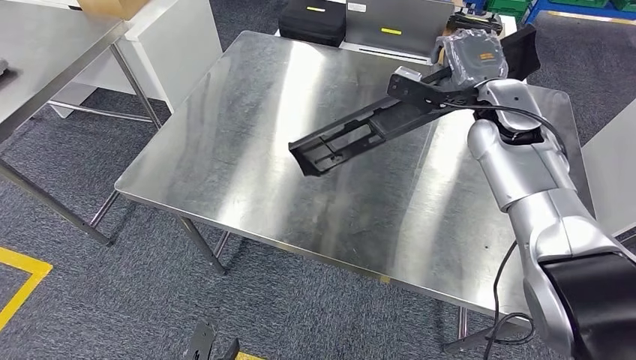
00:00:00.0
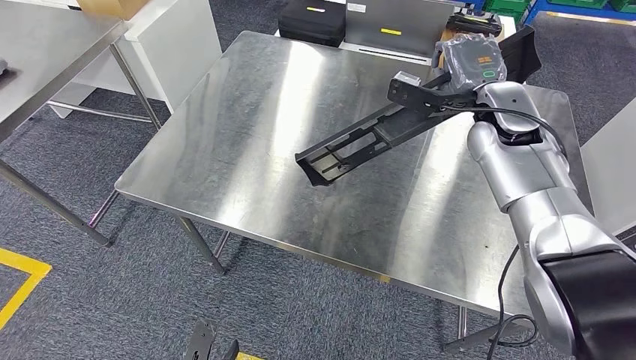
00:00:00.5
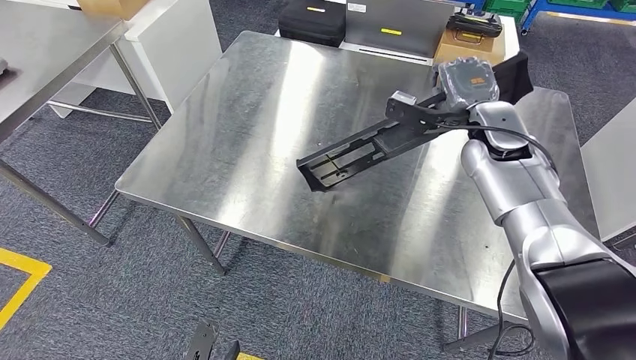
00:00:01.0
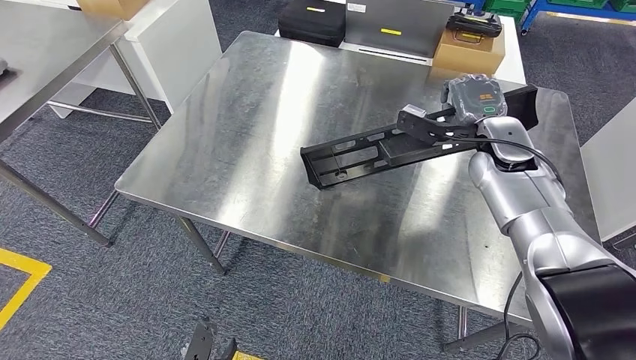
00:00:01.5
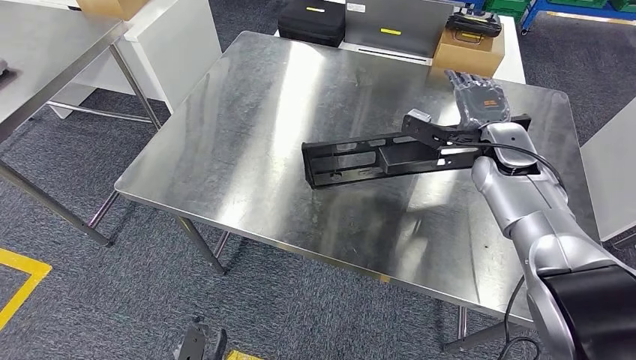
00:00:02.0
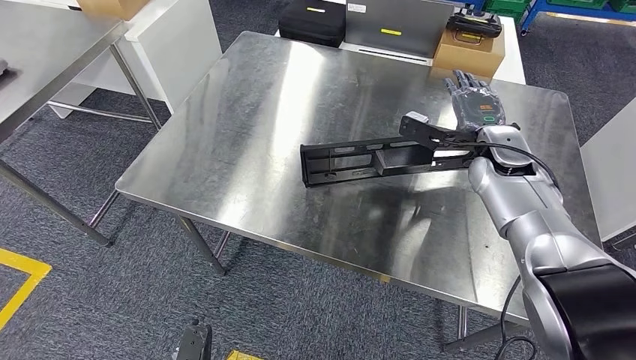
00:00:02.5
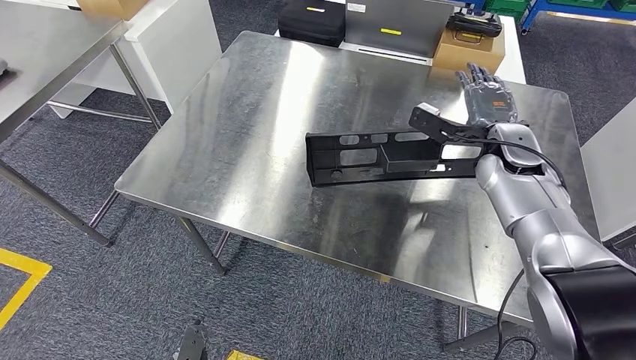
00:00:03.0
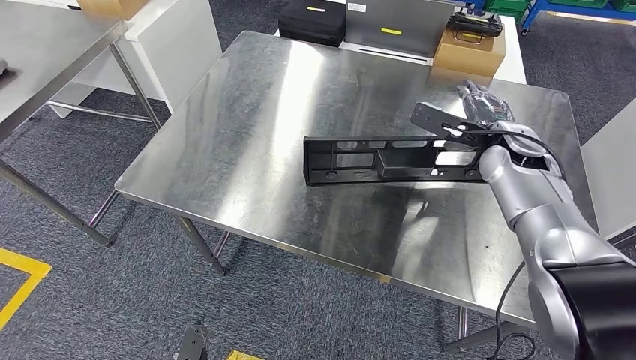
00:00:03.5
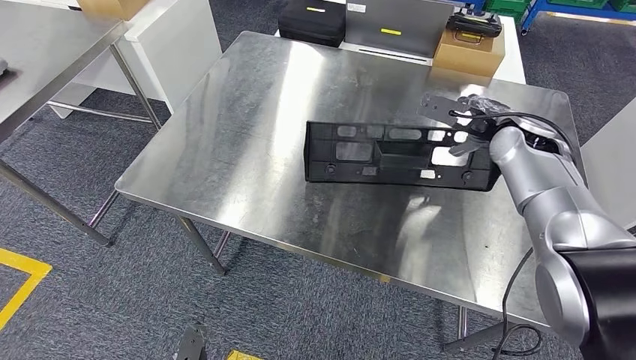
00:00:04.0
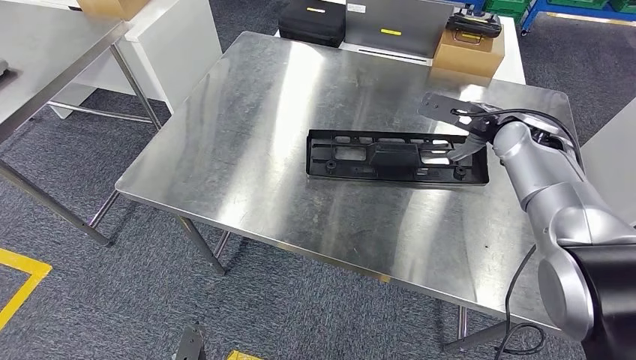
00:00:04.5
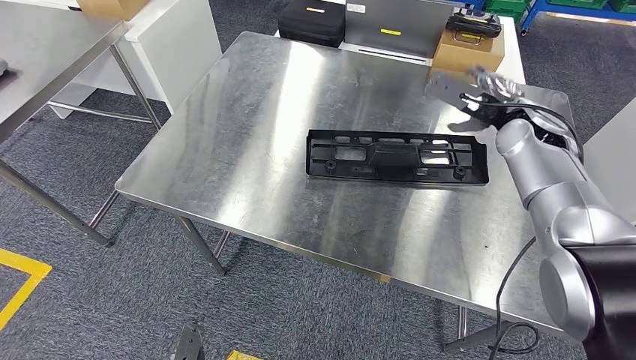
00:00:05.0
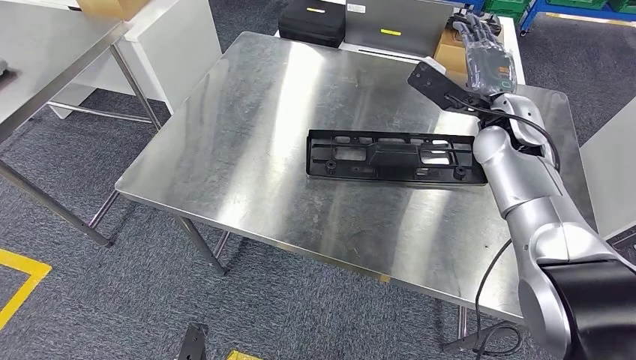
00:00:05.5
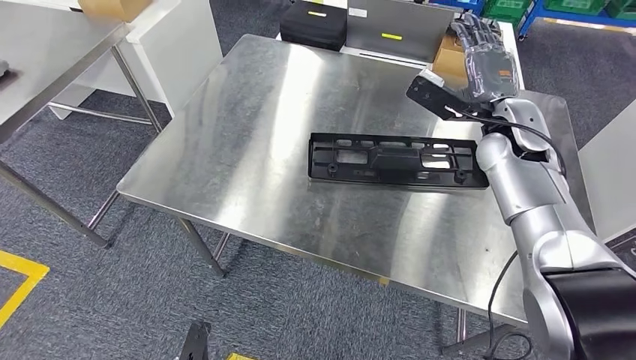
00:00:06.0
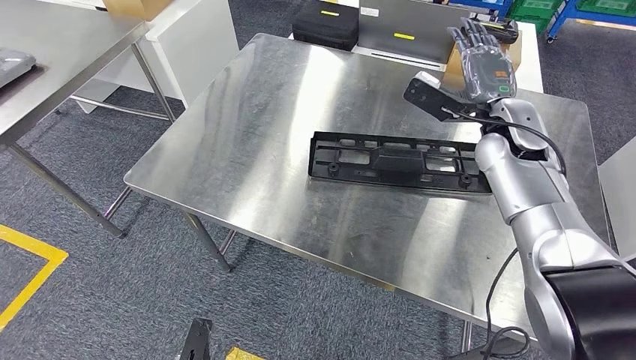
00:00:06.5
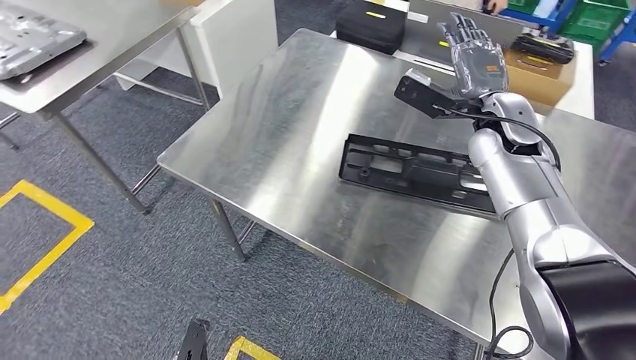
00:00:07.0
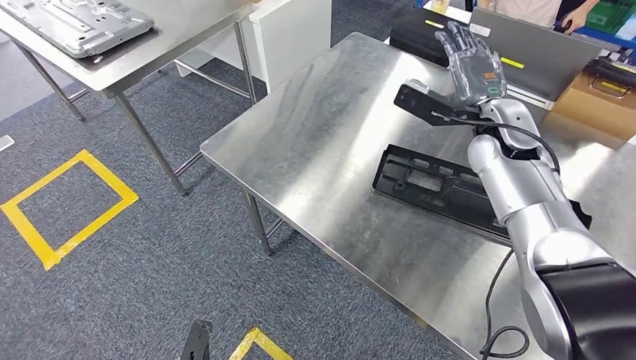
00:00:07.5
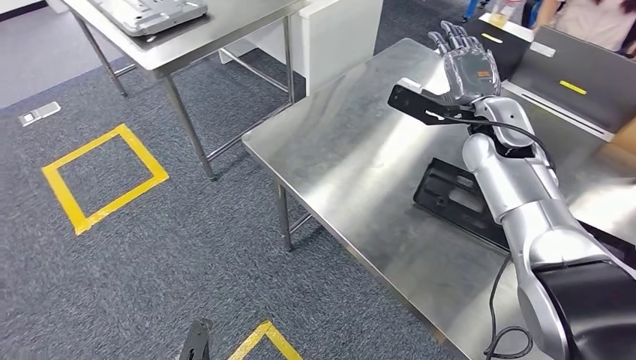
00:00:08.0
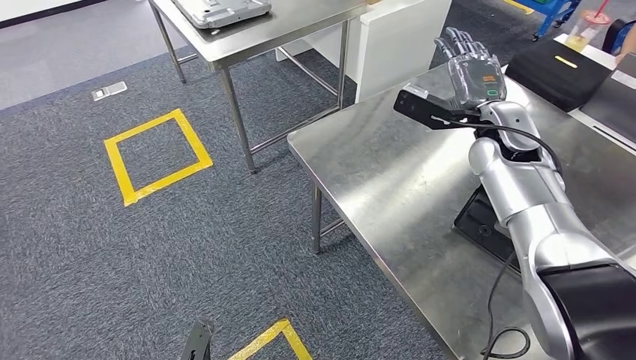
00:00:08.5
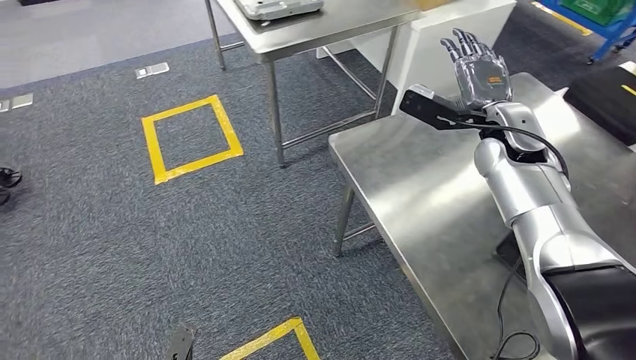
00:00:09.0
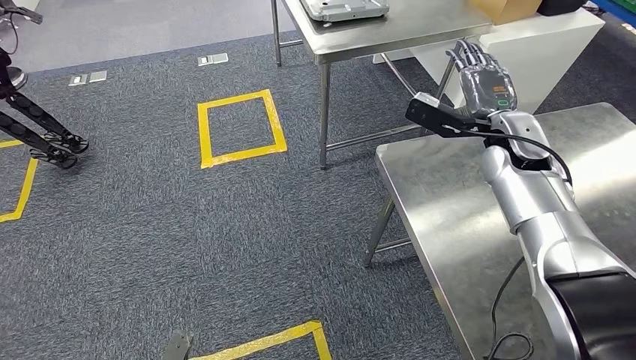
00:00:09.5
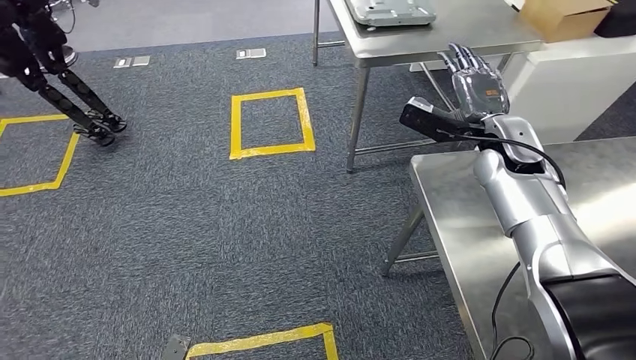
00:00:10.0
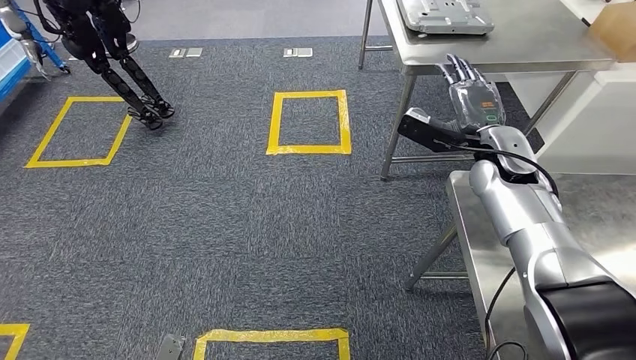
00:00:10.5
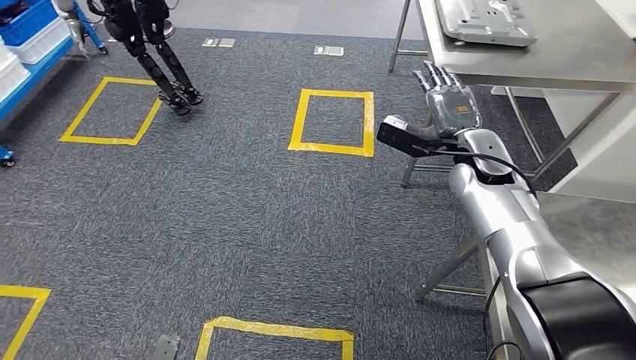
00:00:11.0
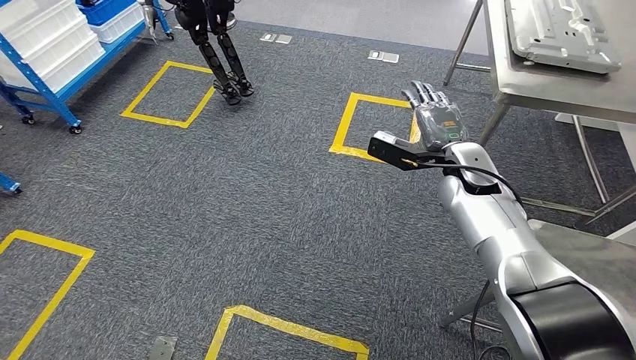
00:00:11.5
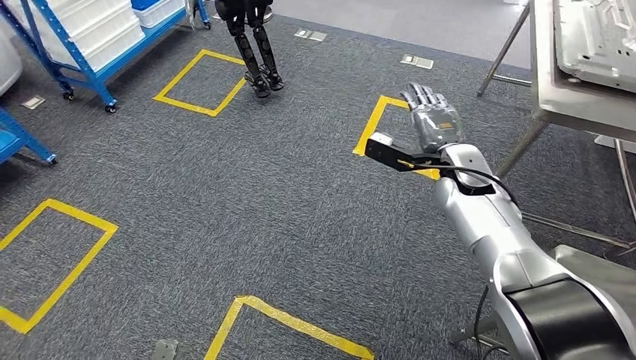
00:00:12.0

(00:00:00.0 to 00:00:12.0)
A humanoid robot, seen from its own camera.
Step, 00:00:00.0 - 00:00:09.0: Insert the large material into the corresponding slot on the workbench.
00:00:00.0 - 00:00:02.0: The right hand travels downward by about 5 cm.

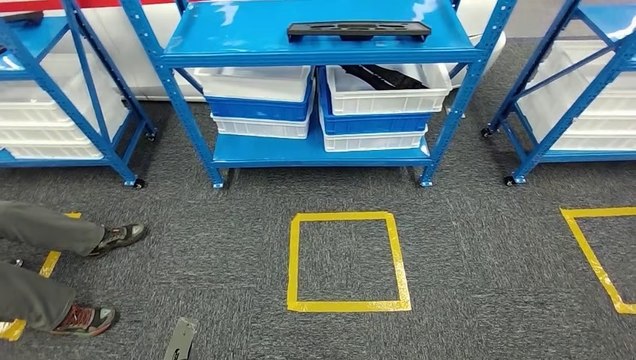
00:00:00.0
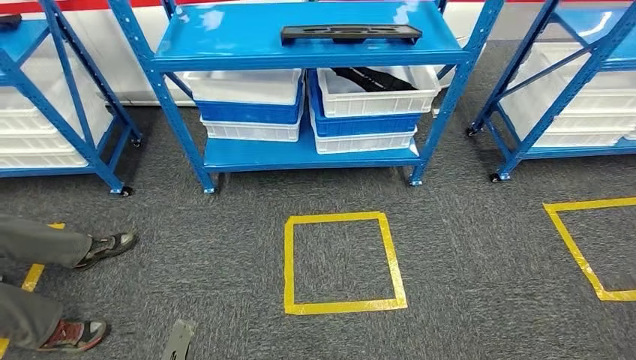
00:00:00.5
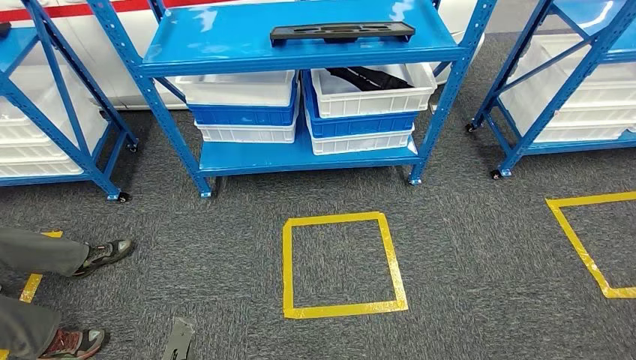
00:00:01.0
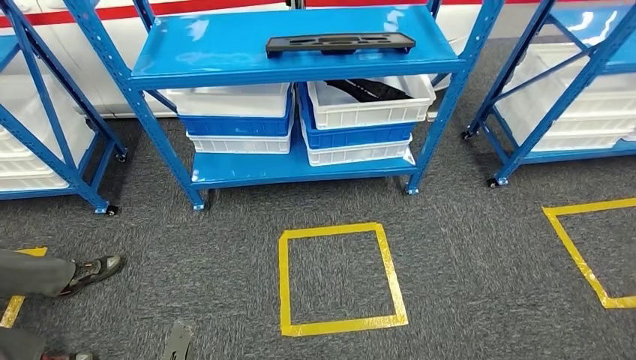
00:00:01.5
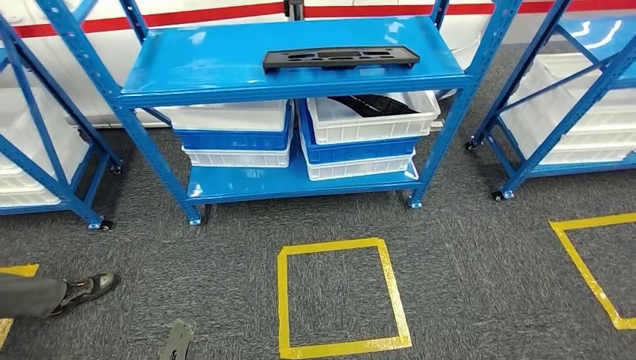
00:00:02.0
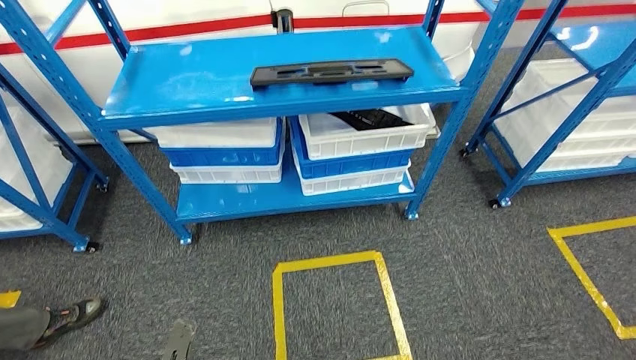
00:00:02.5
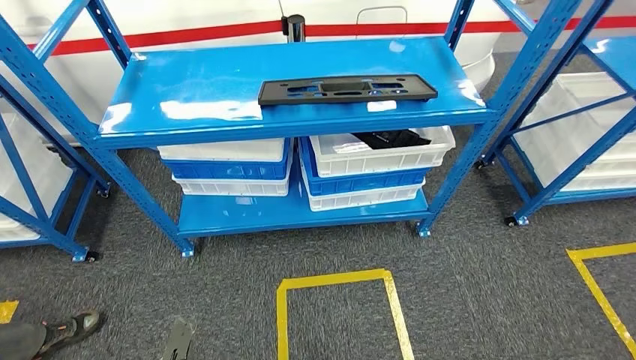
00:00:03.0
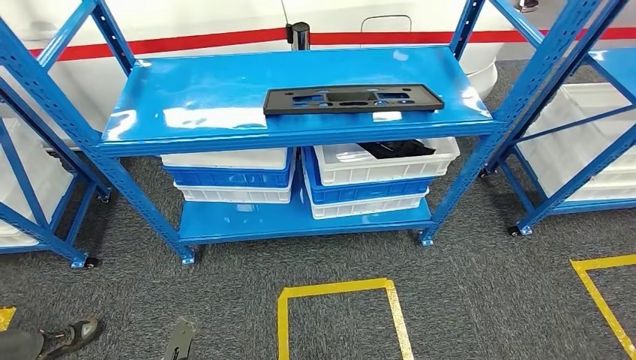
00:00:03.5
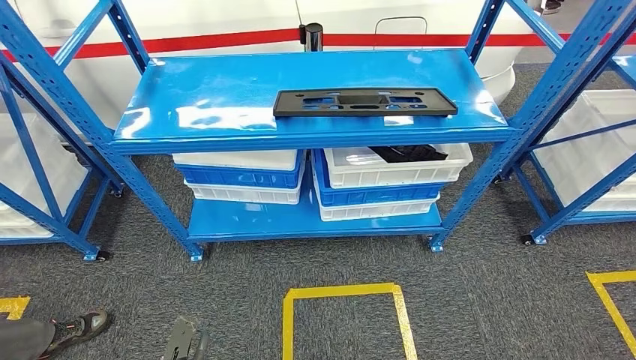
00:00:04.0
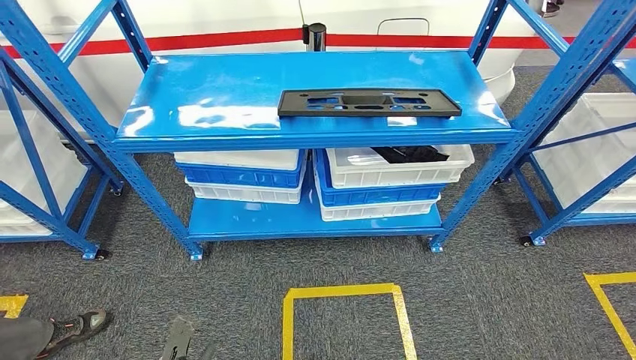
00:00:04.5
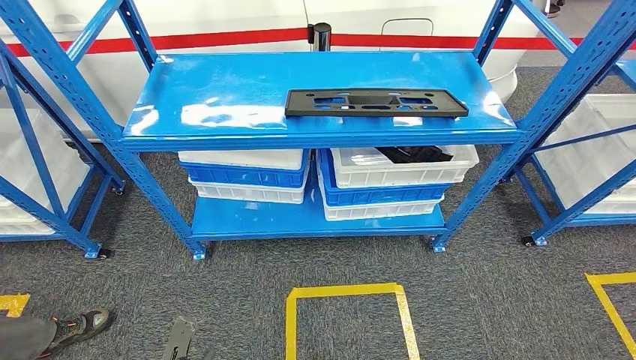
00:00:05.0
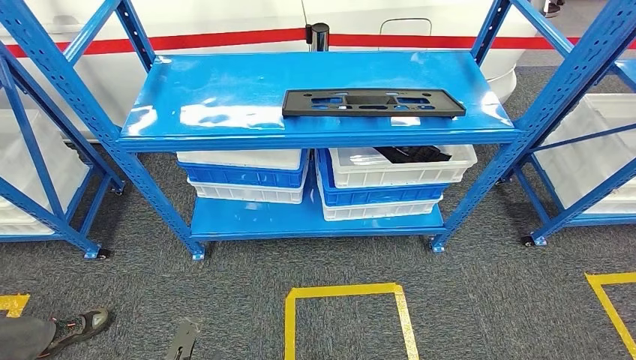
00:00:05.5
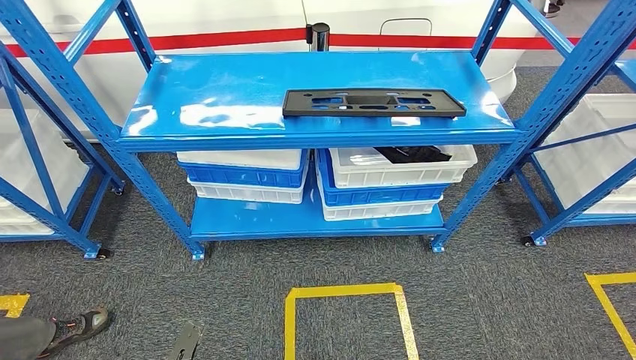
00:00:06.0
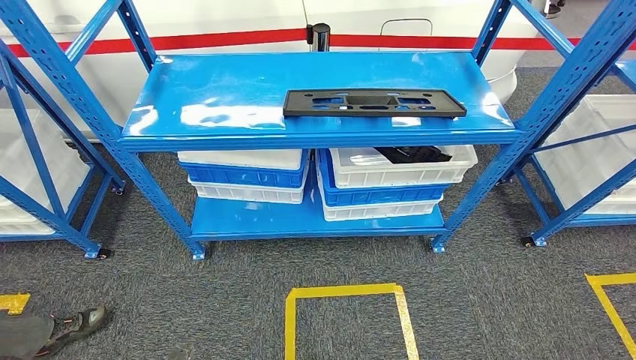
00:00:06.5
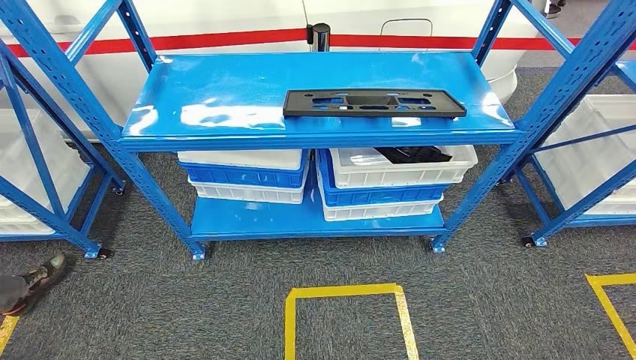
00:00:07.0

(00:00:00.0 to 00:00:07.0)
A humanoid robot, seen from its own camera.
Step, 00:00:00.0 - 00:00:07.0: Move to the initial position of the shelf.
00:00:05.0 - 00:00:07.0: The two hands go approximately 10 cm backward.
